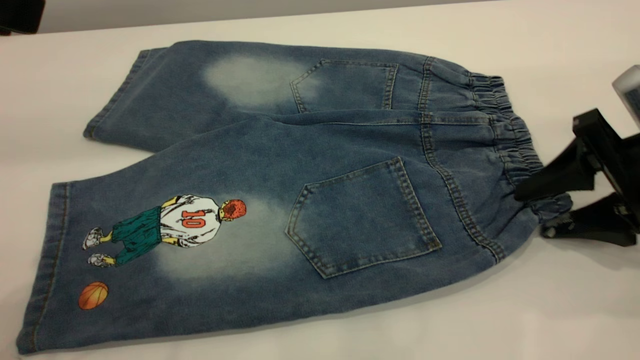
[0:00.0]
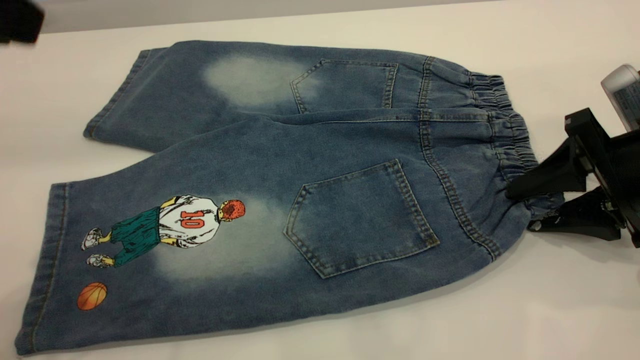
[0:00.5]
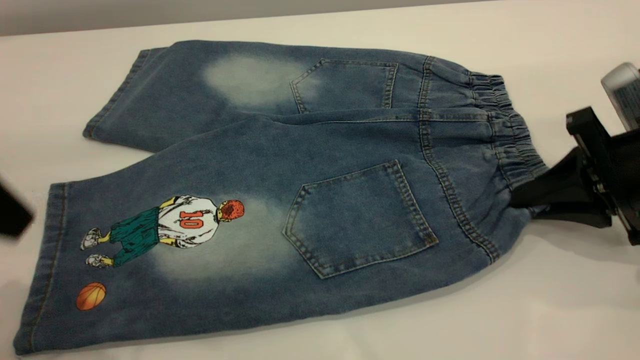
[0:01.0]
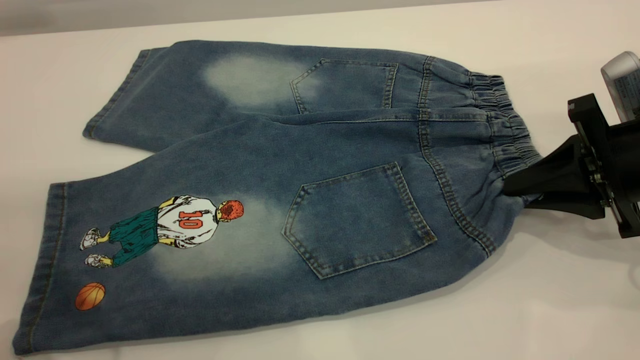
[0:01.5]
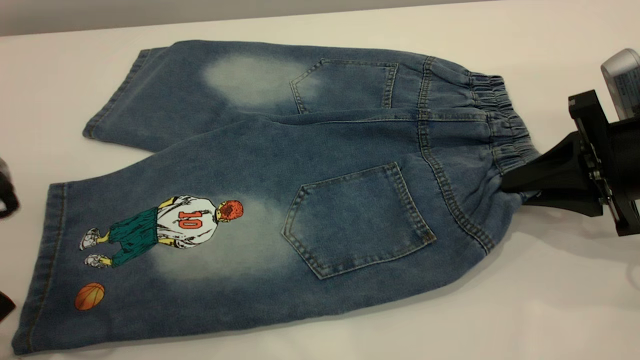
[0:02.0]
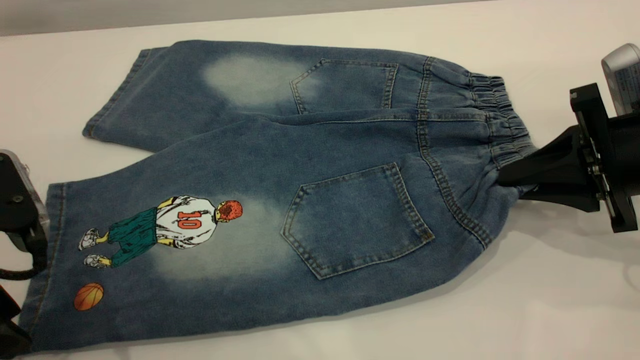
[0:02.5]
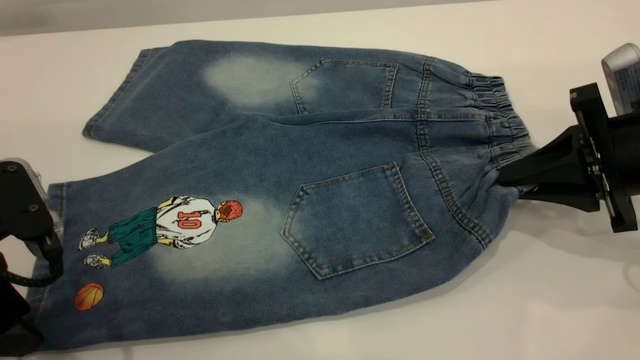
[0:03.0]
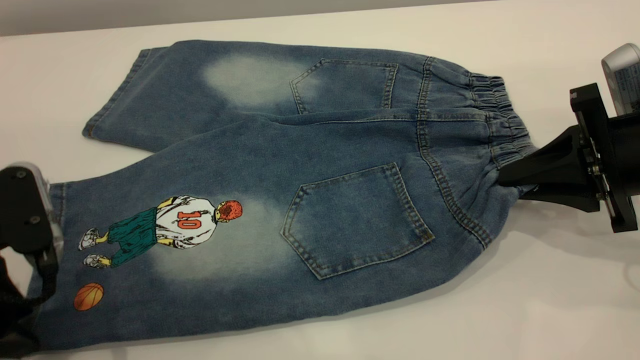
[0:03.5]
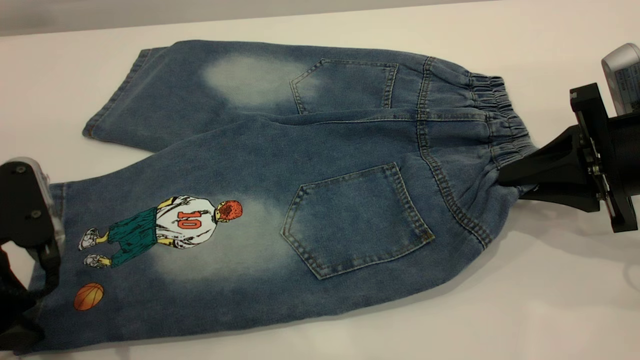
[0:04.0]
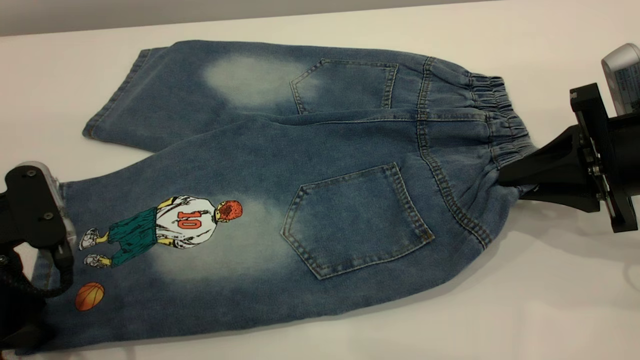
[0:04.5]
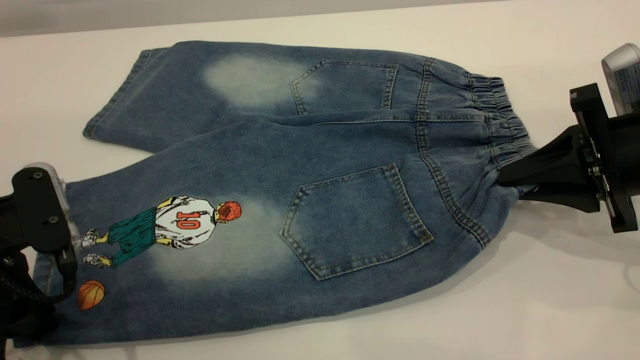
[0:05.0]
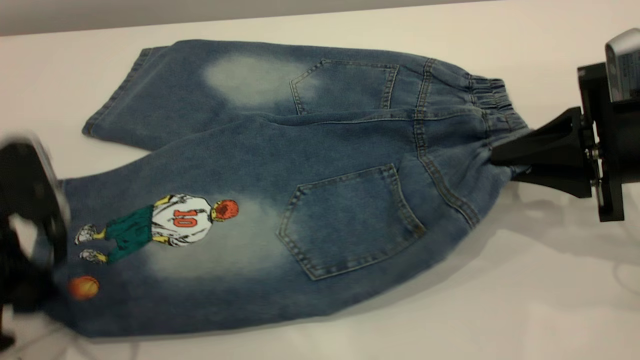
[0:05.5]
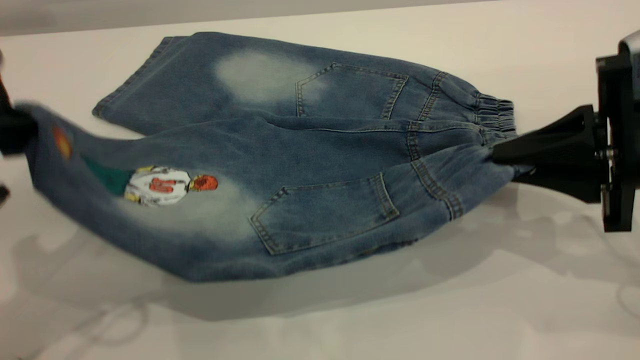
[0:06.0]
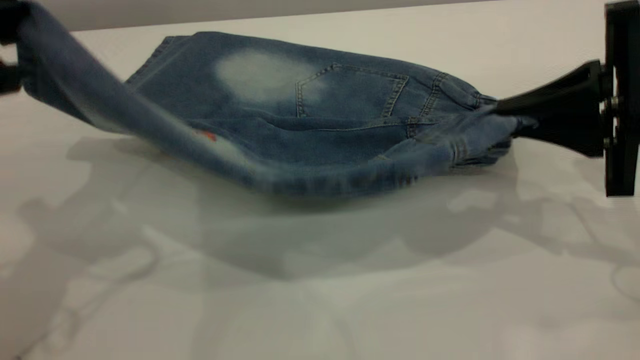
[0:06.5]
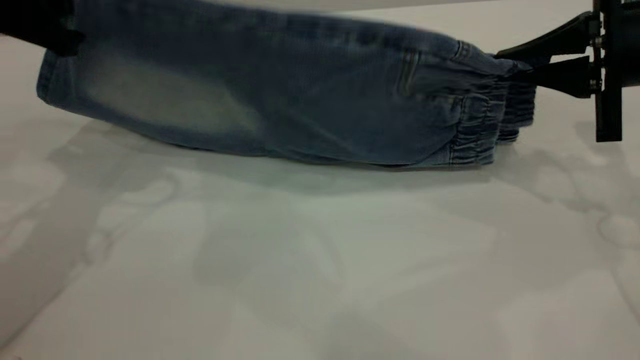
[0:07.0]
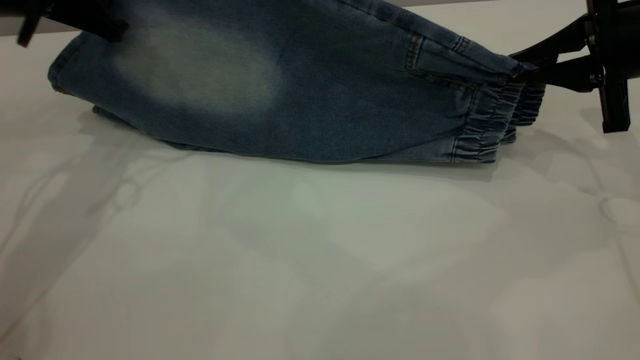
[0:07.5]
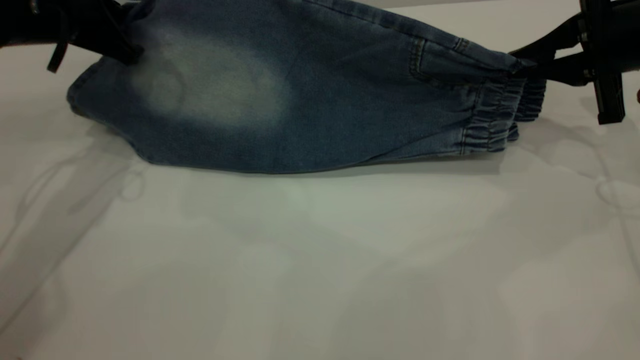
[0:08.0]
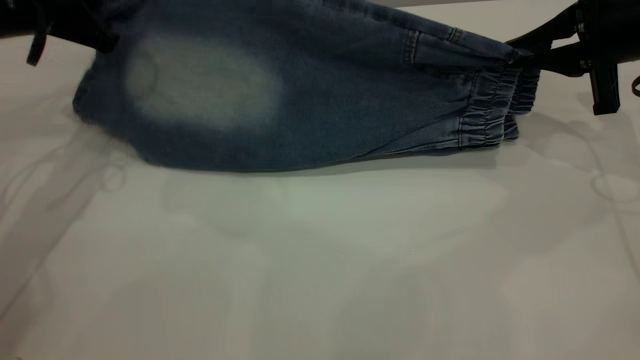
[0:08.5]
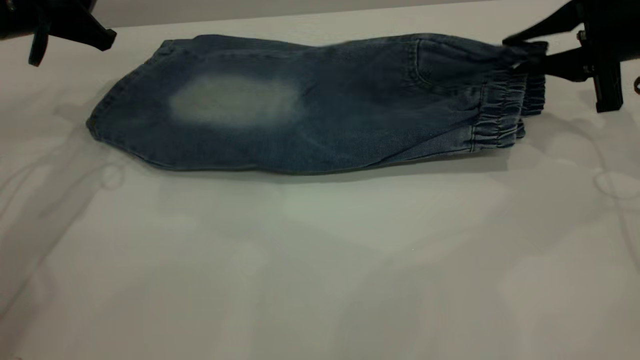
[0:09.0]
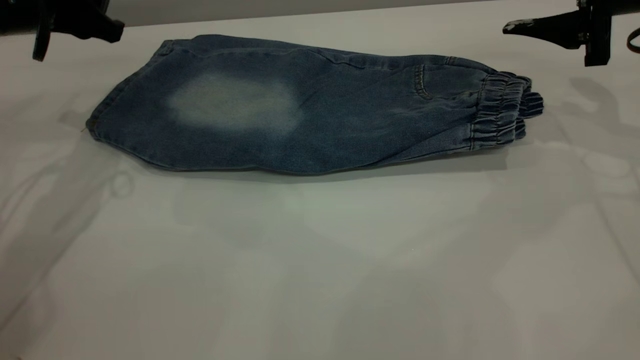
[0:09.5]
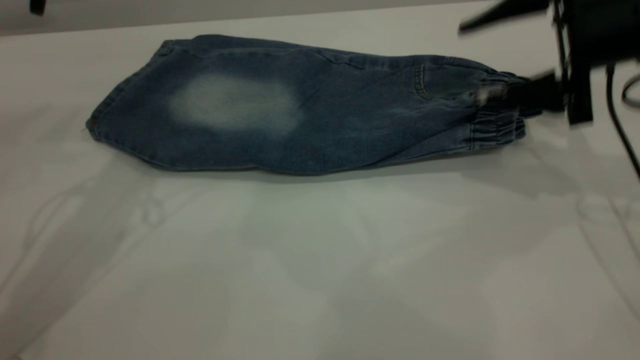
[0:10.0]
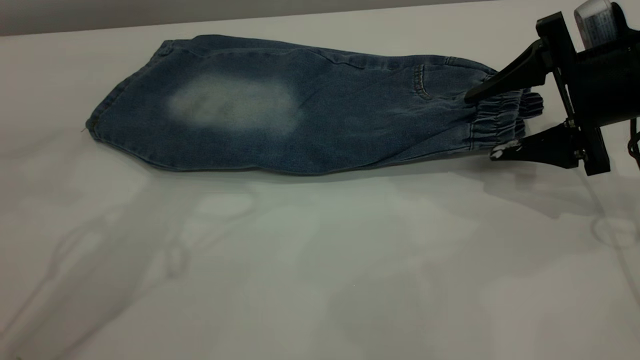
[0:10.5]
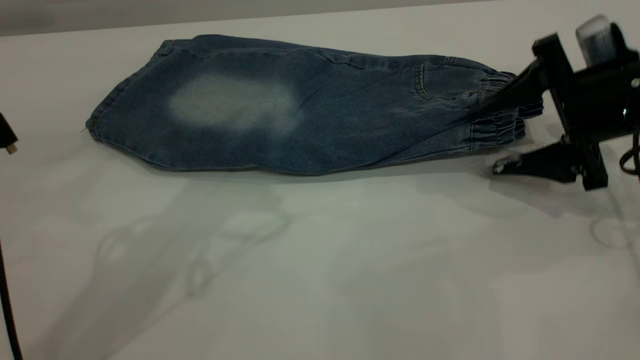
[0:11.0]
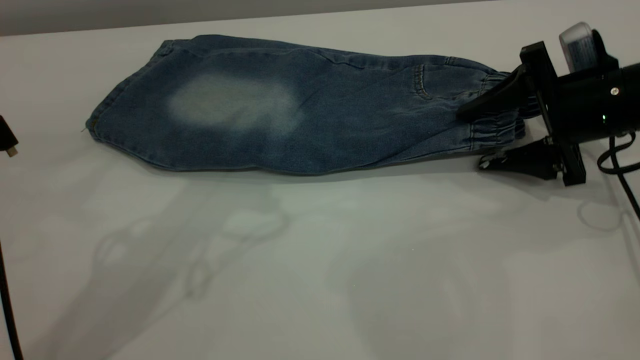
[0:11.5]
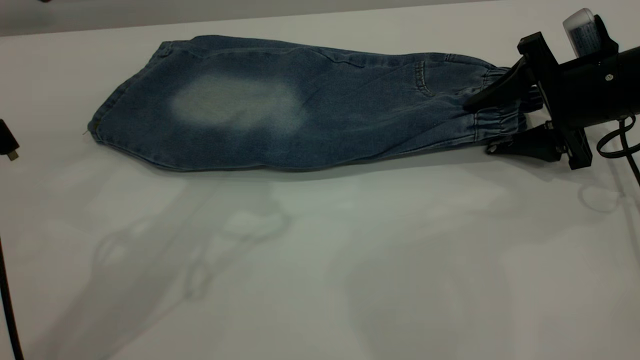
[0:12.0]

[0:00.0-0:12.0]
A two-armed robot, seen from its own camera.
Step, 0:00.0 to 0:09.0: Fold the bottom of the pants upward.
0:00.0 to 0:02.0: The right gripper closes its fingers, while the left gripper heads downward, covering some 15 cm.
0:02.0 to 0:04.0: The grippers make only small movements.
0:04.0 to 0:06.0: The left gripper travels upward by roughly 10 cm, and closes its fingers.
0:06.0 to 0:08.0: The right gripper goes about 10 cm forward. The left gripper travels forward by about 20 cm.
0:08.0 to 0:10.0: The right gripper opens up, while the left gripper travels upward by some 5 cm, and opens its fingers.
0:10.0 to 0:12.0: The left gripper shifts roughly 10 cm to the right and backward. Meanwhile the right gripper shifts about 5 cm downward.

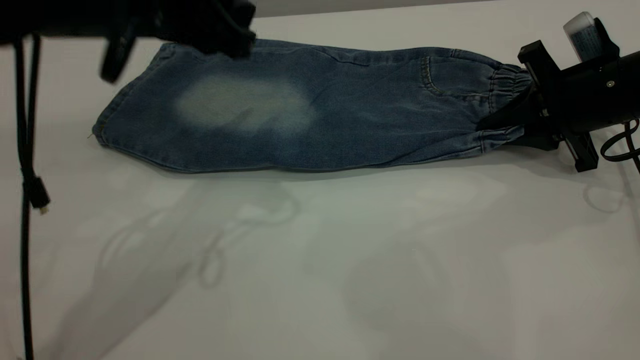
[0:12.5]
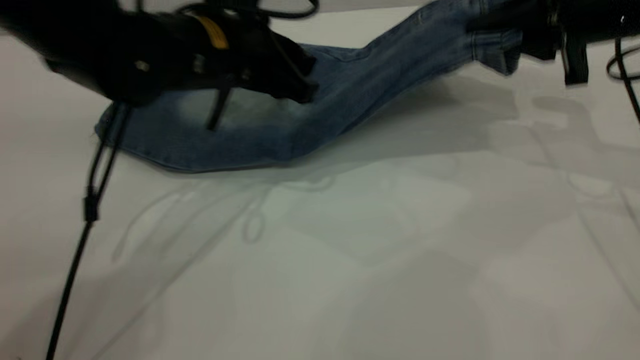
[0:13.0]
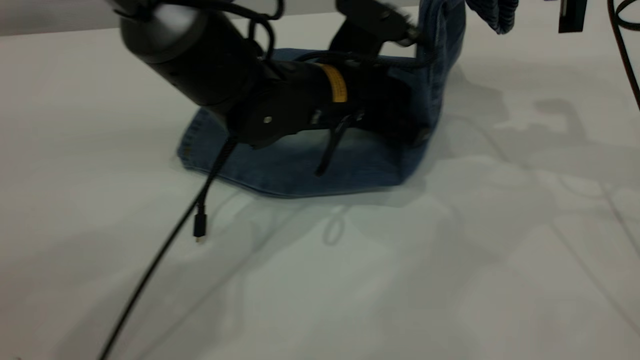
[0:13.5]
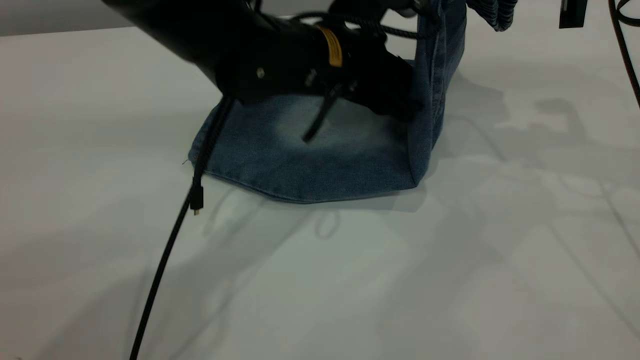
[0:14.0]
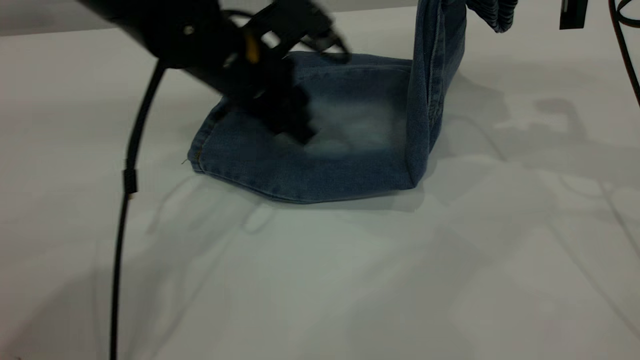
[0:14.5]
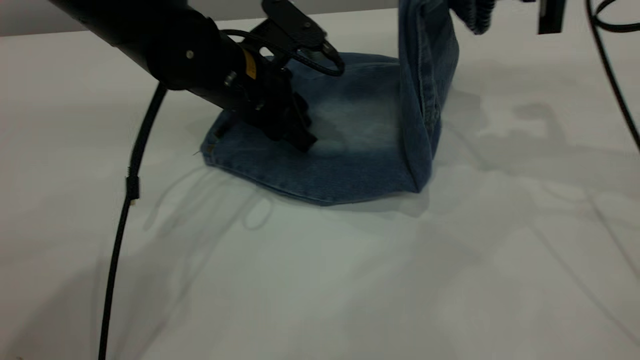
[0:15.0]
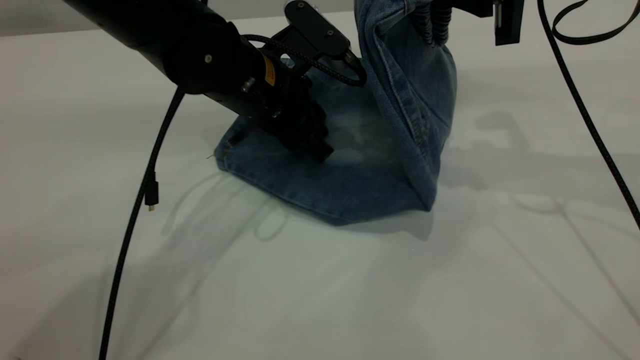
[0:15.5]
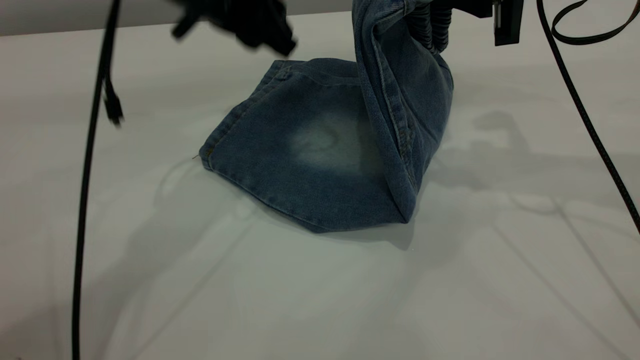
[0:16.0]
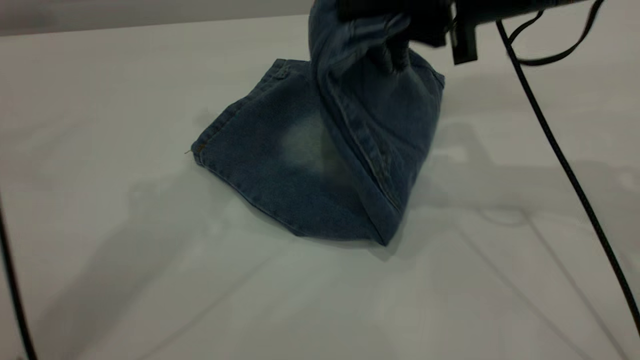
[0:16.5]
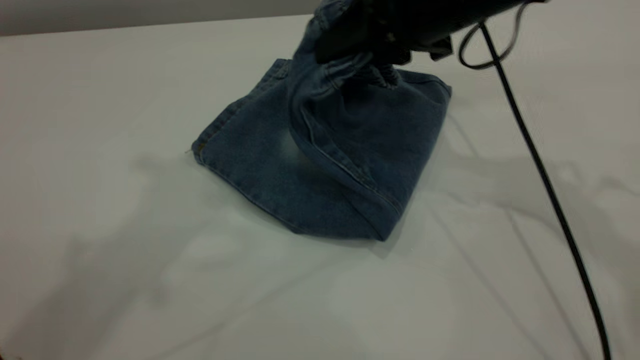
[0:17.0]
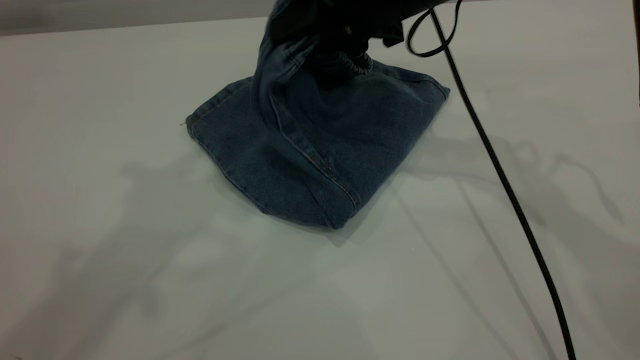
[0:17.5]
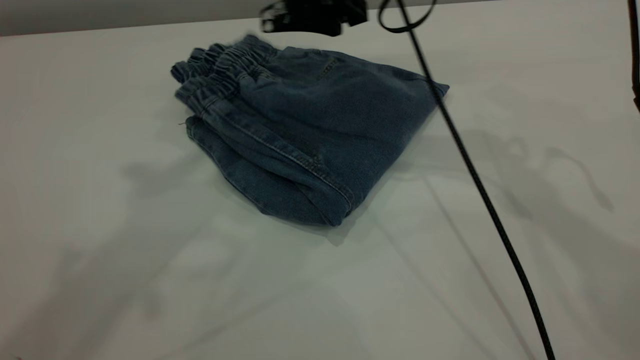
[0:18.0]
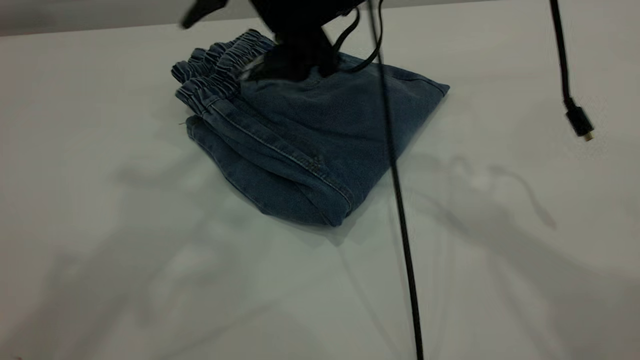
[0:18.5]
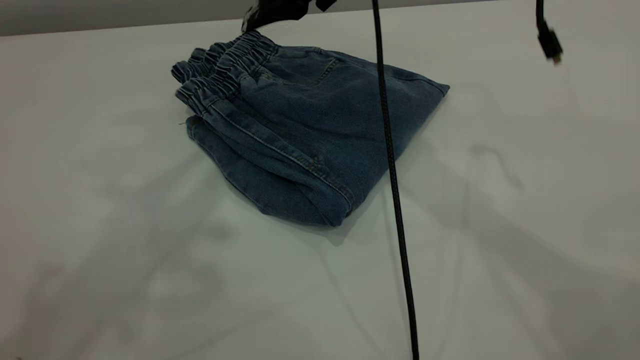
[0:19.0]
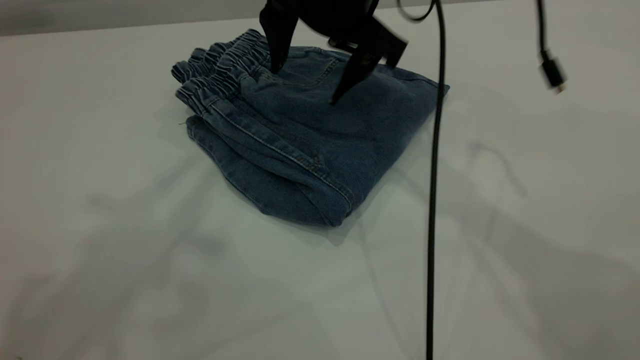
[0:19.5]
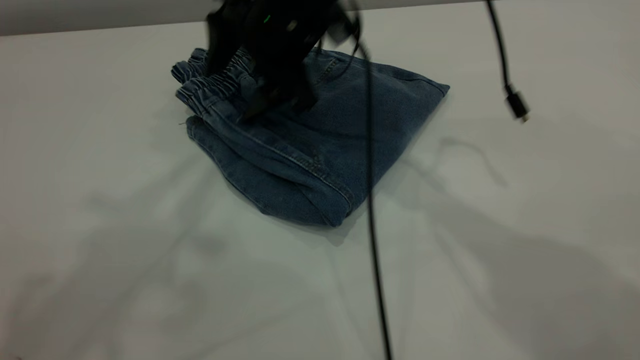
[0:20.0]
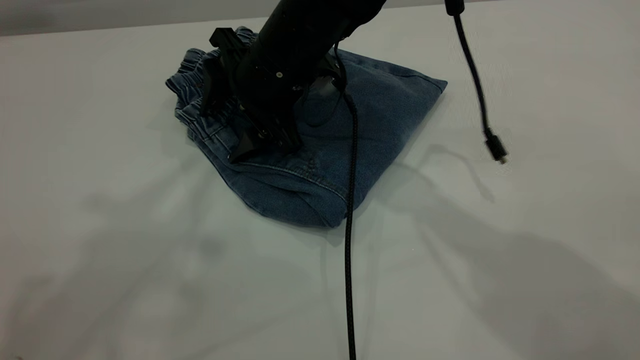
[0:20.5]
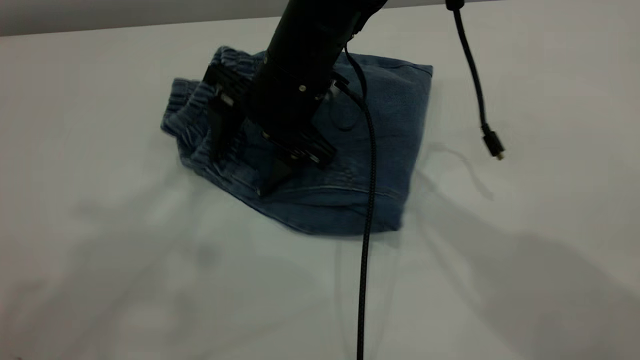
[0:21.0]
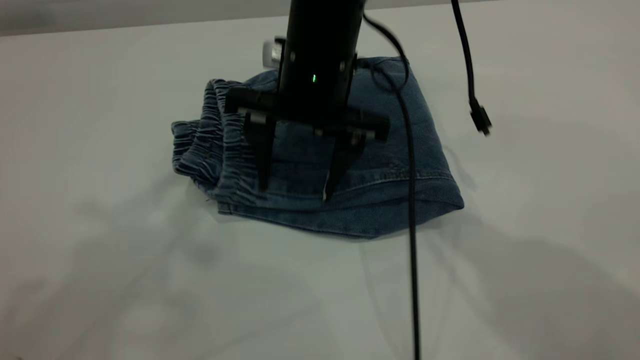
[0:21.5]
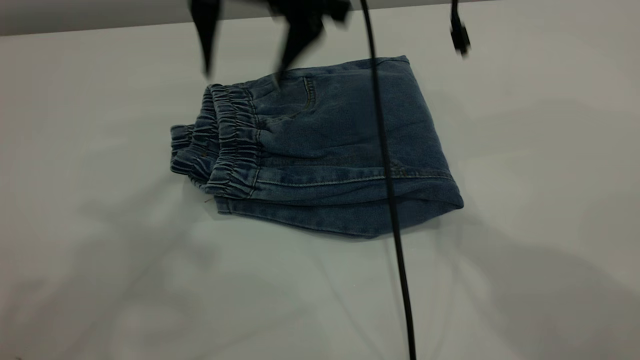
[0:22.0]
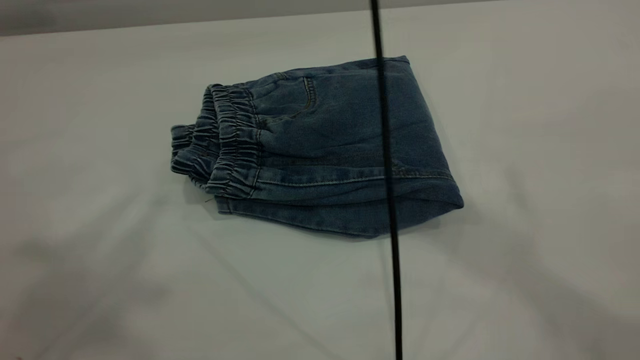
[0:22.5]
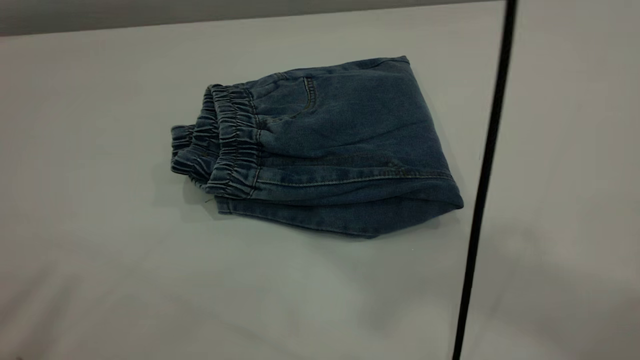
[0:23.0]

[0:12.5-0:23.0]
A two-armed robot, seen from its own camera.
Step, 0:12.5 to 0:18.0: Fold your pants from right to left.
0:12.5 to 0:14.5: The left gripper goes about 10 cm downward and forward, and moves about 15 cm to the right and comes back, while the right gripper travels upward by about 15 cm.
0:14.5 to 0:16.5: The left gripper is displaced upward by about 30 cm. The right gripper heads to the left, covering about 10 cm.
0:16.5 to 0:19.0: The left gripper is displaced upward and backward by approximately 15 cm, while the right gripper heads to the left, covering about 15 cm, and opens its fingers.
0:19.0 to 0:21.0: The right gripper travels downward by about 15 cm.
0:21.0 to 0:23.0: The right gripper is displaced upward by roughly 50 cm. The left gripper moves backward and to the left, roughly 15 cm.
